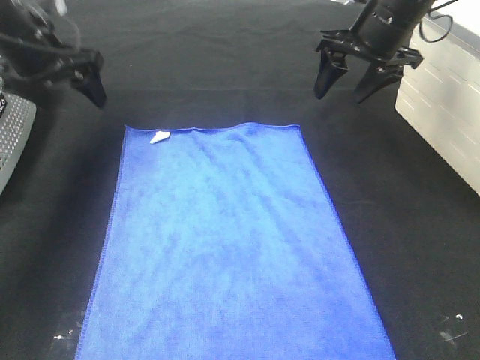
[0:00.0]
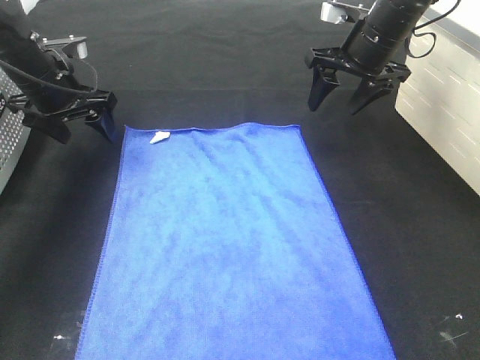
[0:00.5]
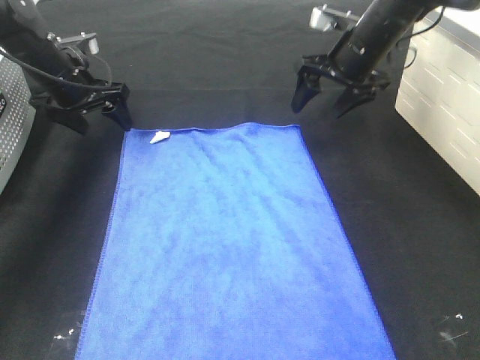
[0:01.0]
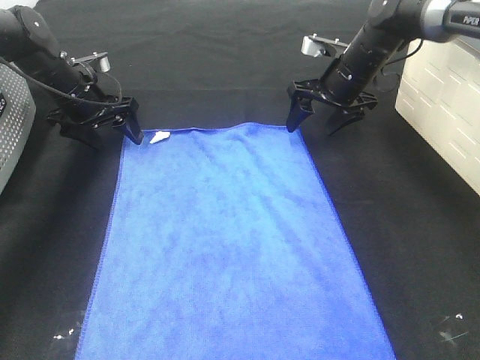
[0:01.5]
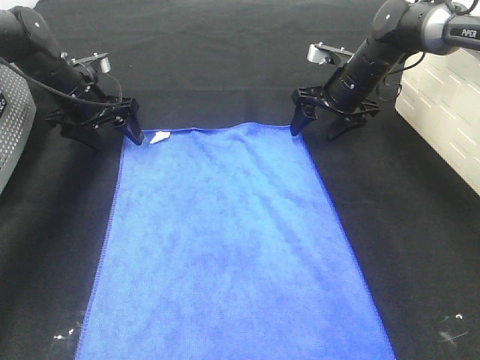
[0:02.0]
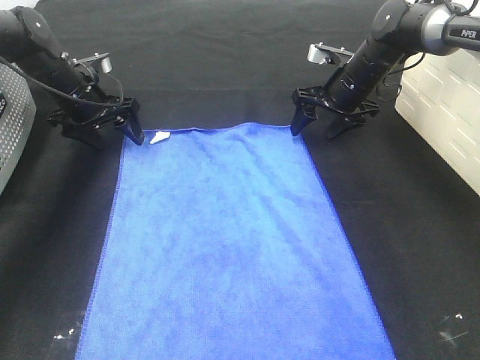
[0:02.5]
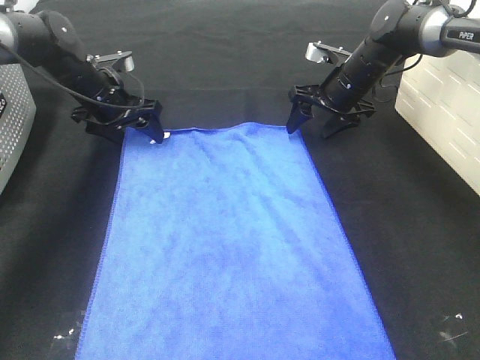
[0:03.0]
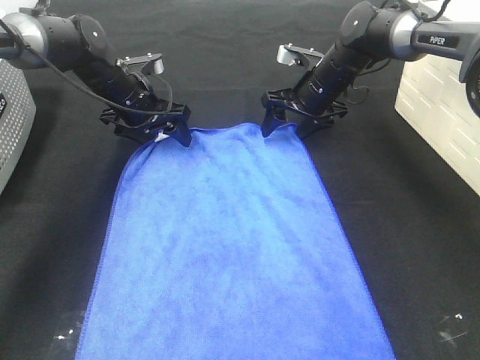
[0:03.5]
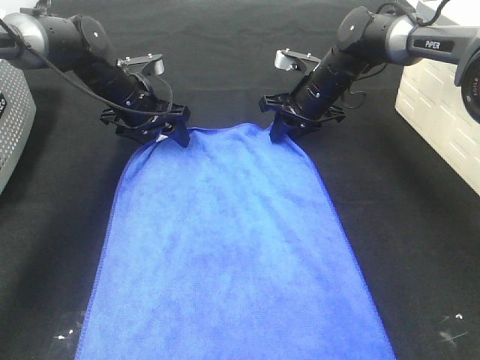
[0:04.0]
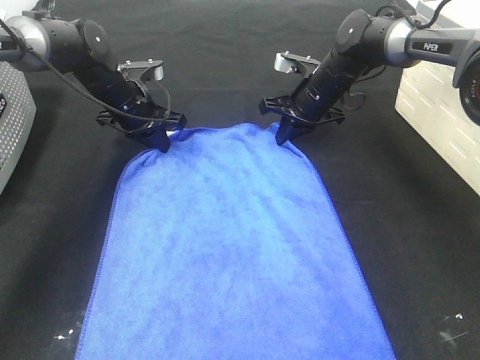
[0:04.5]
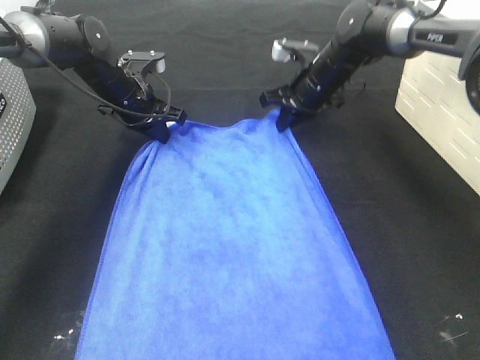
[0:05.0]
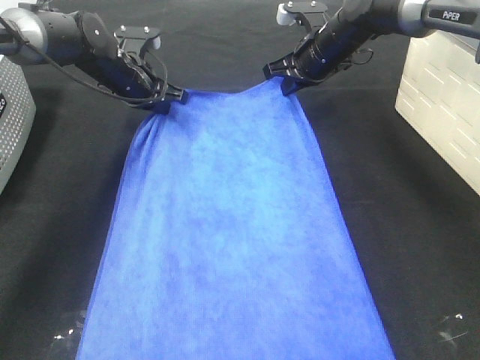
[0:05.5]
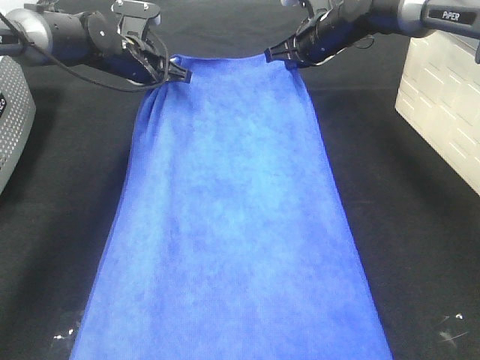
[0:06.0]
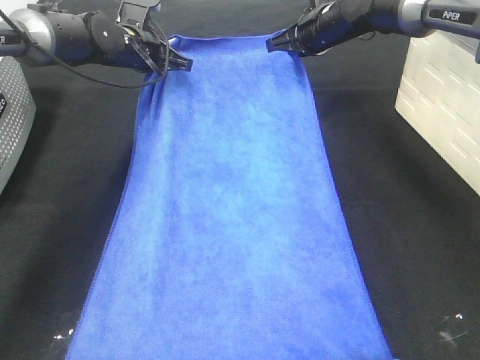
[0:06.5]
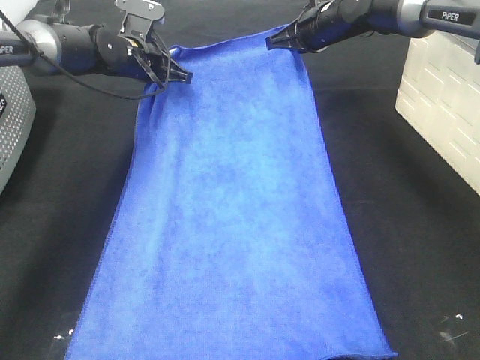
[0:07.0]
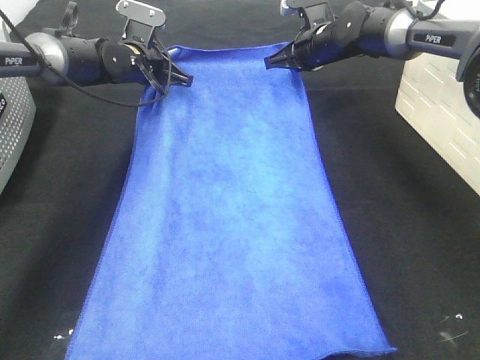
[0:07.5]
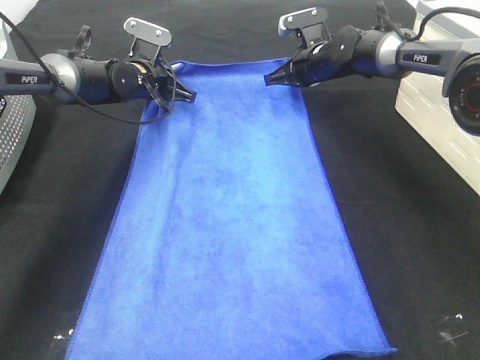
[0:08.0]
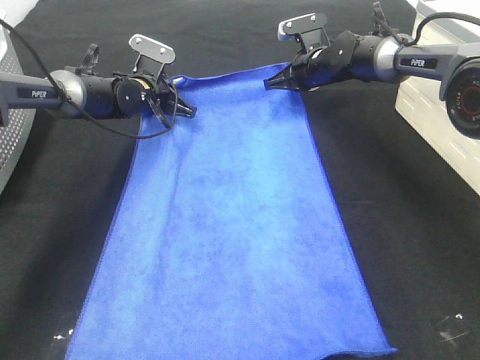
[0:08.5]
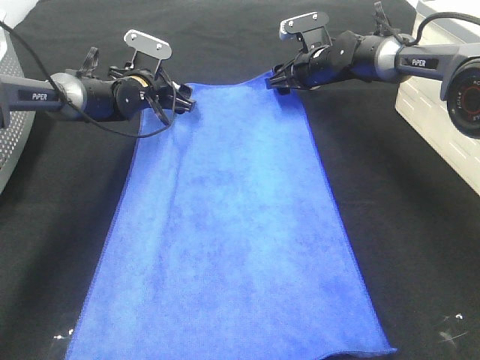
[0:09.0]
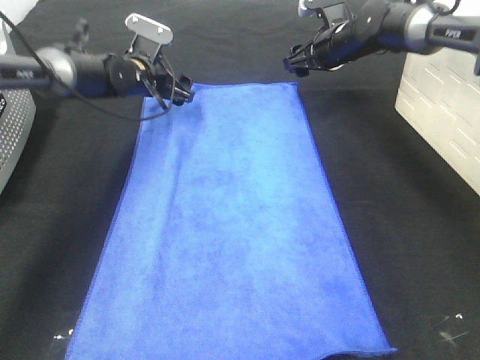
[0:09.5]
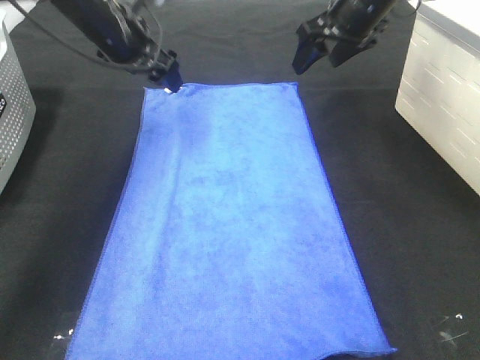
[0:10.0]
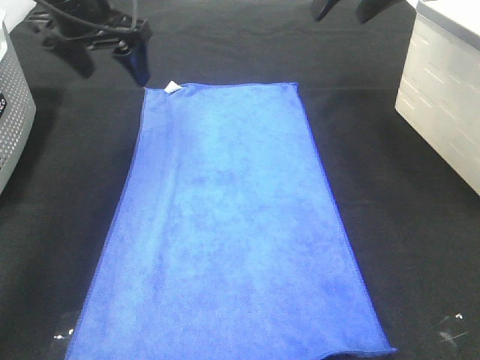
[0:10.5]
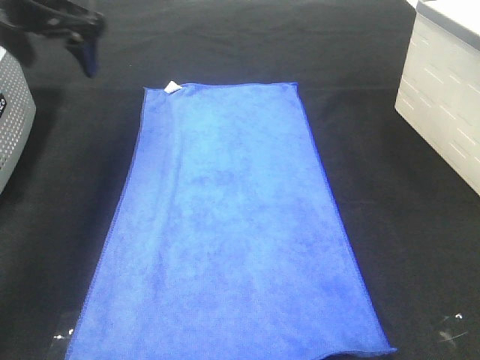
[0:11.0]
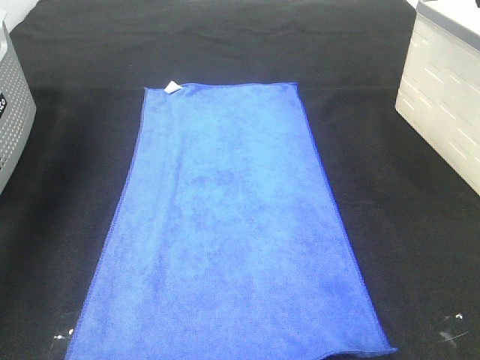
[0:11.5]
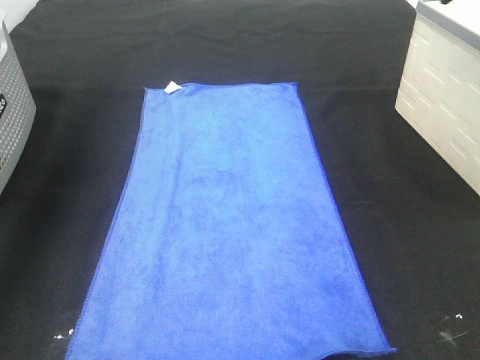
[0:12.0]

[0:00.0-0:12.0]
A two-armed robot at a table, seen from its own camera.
Task of the whole recording: Remove the towel and place it.
0:00.0 to 0:02.0: Both grippers travel together downward and forward, roughly 10 cm.
0:02.0 to 0:04.0: The left gripper travels to the right by some 10 cm. Meanwhile the right gripper shifts approximately 5 cm to the left, and closes.
0:04.0 to 0:06.0: The right gripper goes roughly 5 cm upward, and closes. The left gripper moves roughly 5 cm, and closes its fingers.
0:06.0 to 0:08.0: Both grippers travel together downward, some 5 cm.
0:08.0 to 0:10.0: The two grippers go some 15 cm upward and backward. The left gripper opens its fingers. Meanwhile the right gripper opens its fingers.
0:10.0 to 0:12.0: The left gripper travels to the left, upward and backward by roughly 25 cm, while the right gripper travels backward, upward and to the right by some 25 cm.

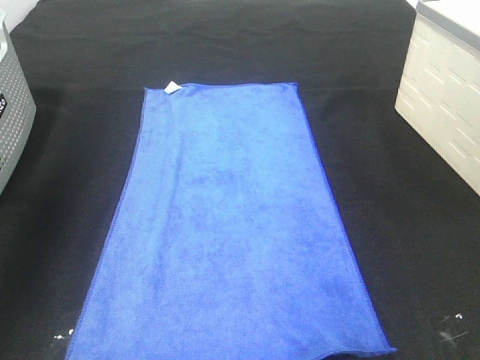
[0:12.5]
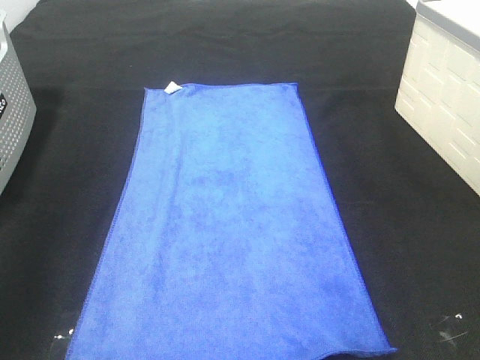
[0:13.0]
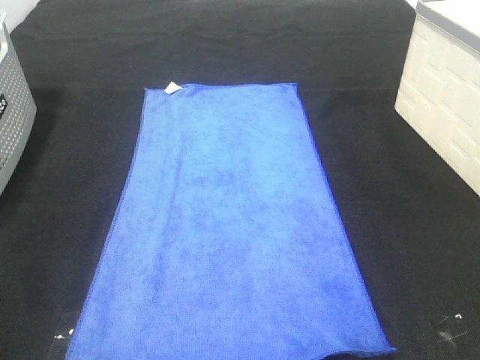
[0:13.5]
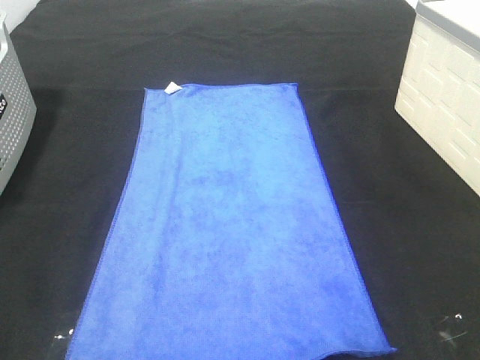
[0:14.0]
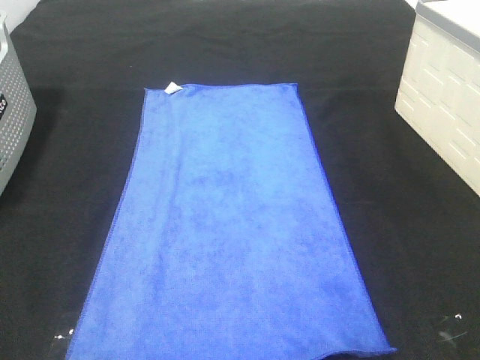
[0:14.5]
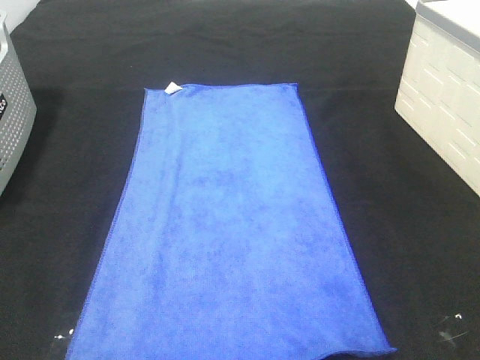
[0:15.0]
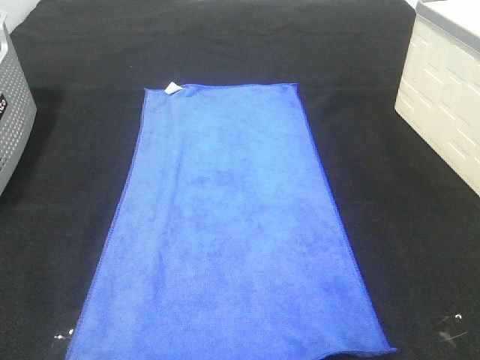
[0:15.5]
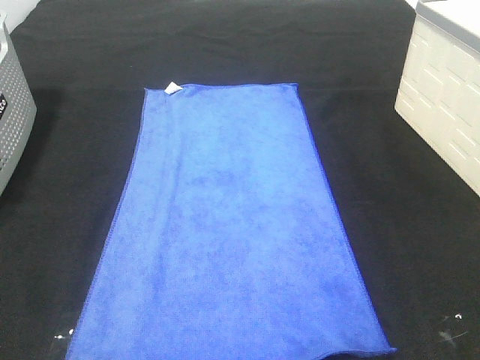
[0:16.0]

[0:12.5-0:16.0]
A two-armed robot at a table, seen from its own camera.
Task of the whole recording: Remove the towel and place it.
0:12.5 to 0:14.5: The left gripper moves backward and downward, approximately 30 cm.

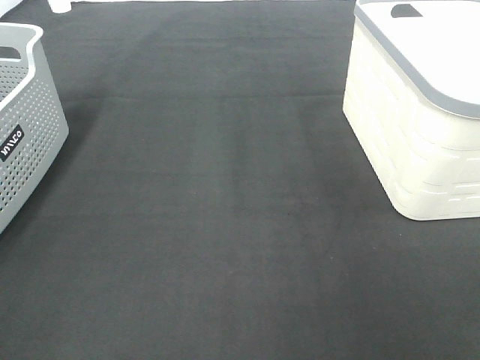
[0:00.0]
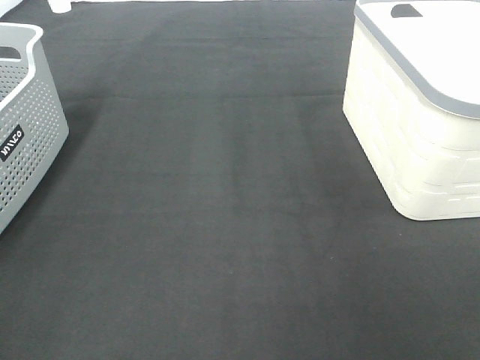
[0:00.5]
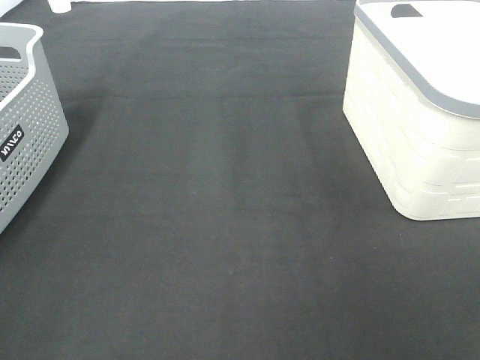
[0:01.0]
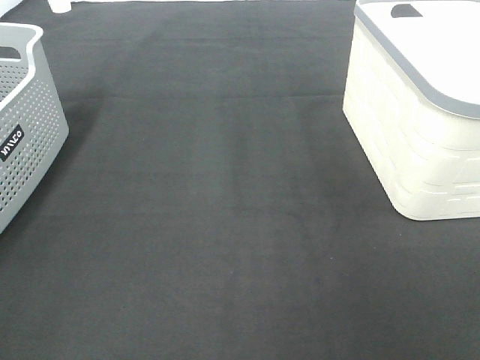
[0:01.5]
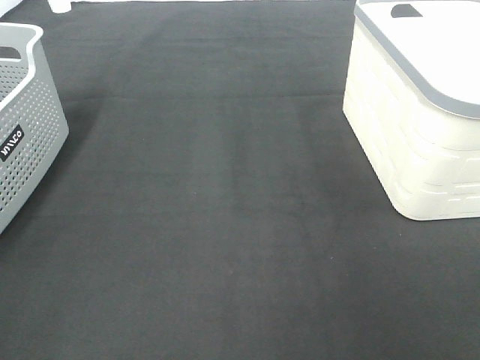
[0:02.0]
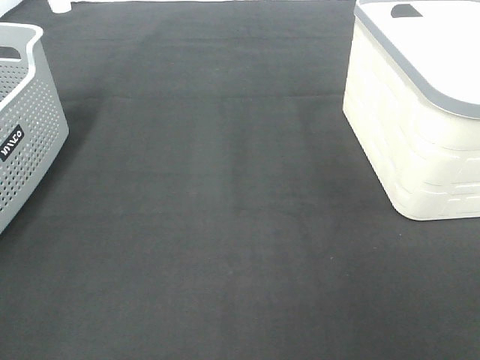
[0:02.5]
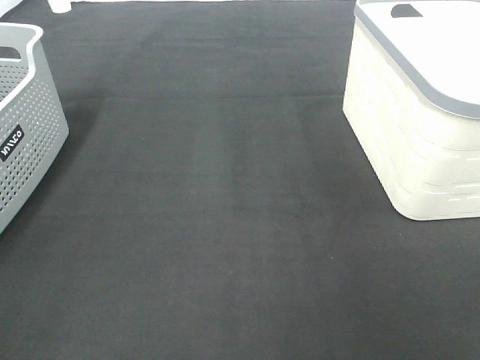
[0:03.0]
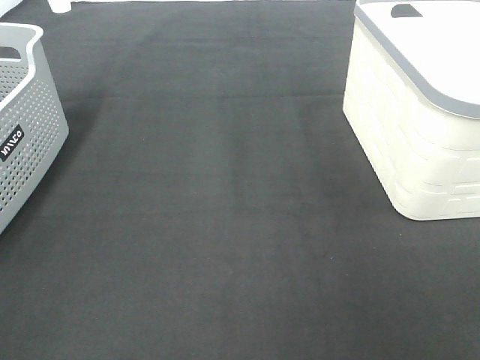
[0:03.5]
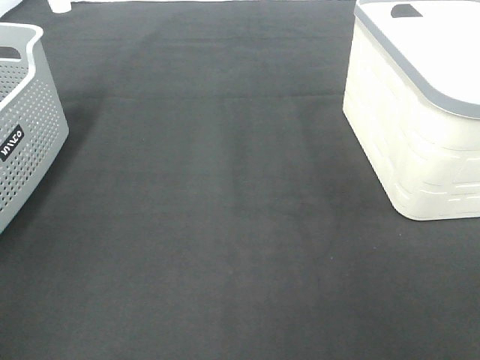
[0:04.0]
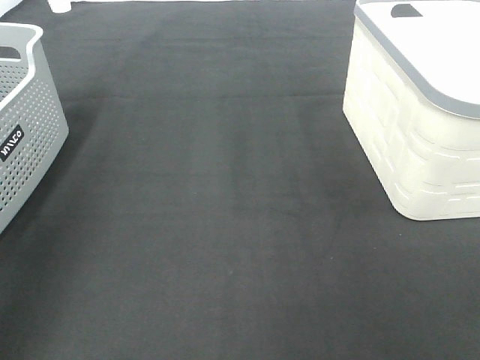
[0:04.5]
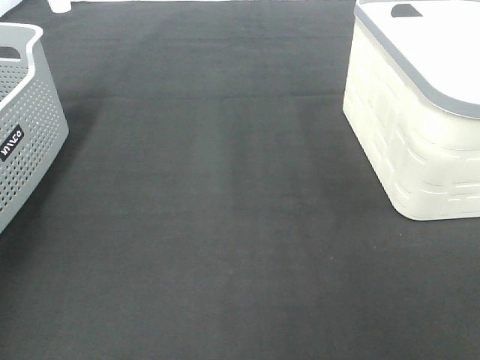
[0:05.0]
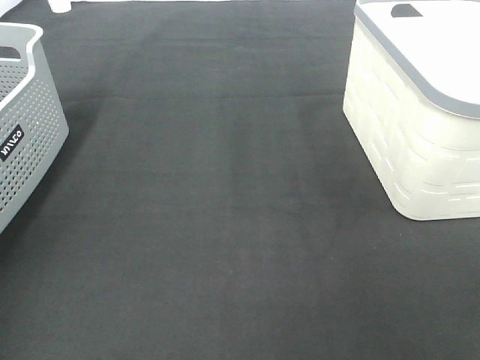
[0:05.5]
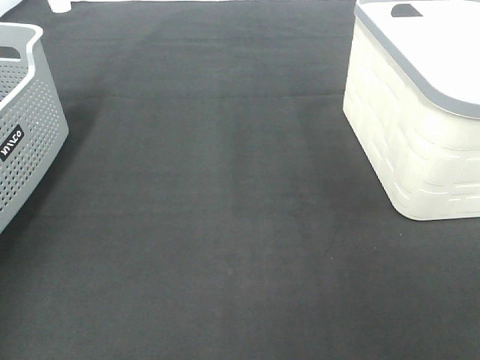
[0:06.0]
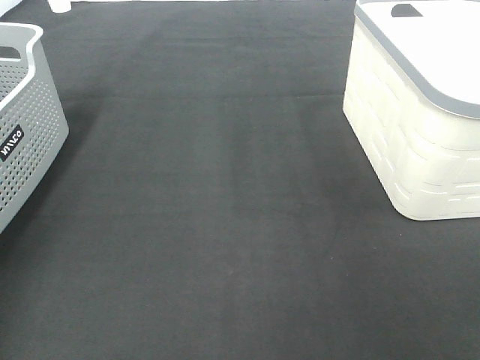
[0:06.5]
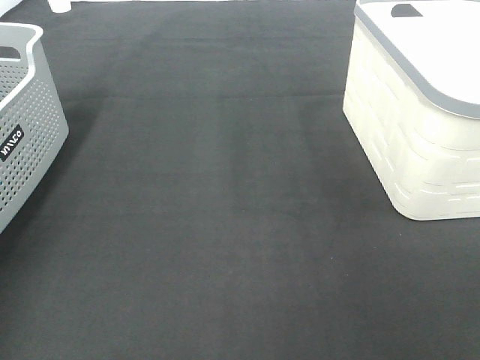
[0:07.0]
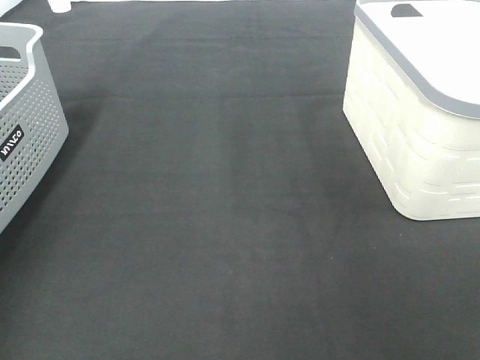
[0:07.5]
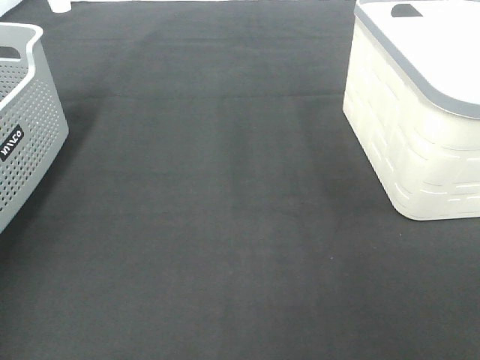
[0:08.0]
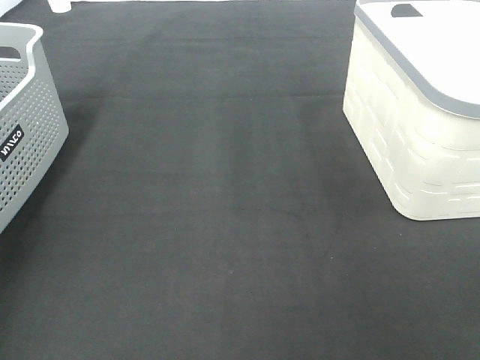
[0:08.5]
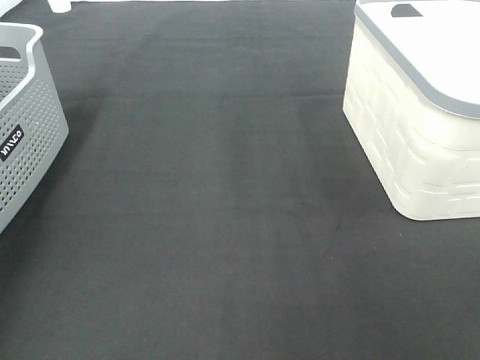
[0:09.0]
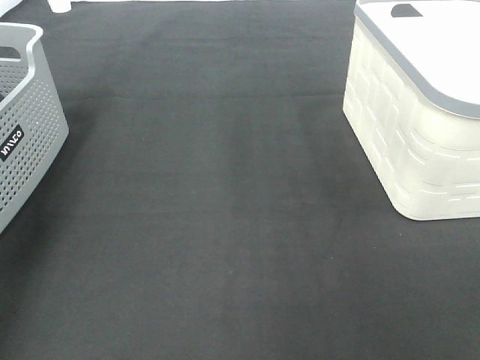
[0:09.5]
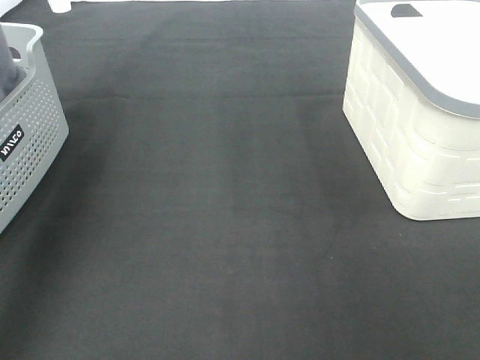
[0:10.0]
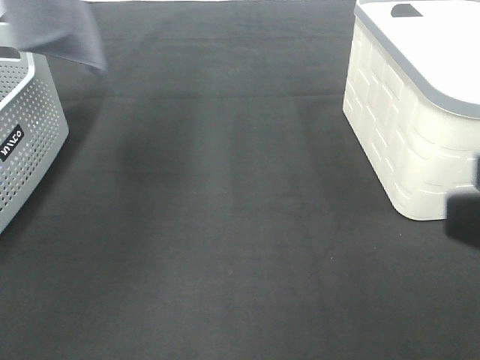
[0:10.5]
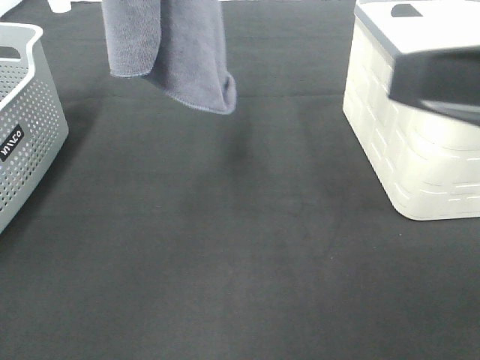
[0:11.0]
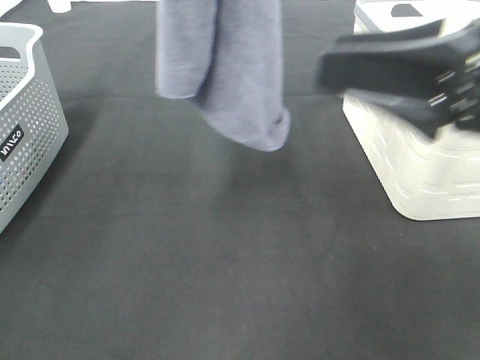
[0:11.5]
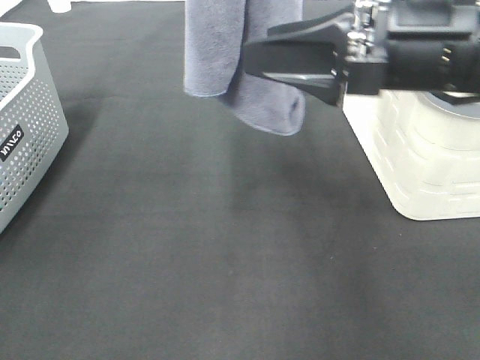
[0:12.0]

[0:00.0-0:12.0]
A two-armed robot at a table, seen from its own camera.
Task of the whole recording: Remove the towel and place it.
0:00.0 to 0:02.0: Both grippers stay put.
0:08.0 to 0:10.0: The left gripper is displaced upward and to the right by about 30 cm.
0:10.0 to 0:12.0: The right gripper moves forward and to the left, about 25 cm, while the left gripper heads to the right, covering about 20 cm.
